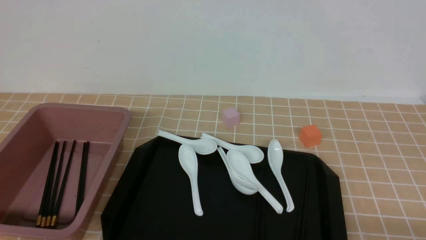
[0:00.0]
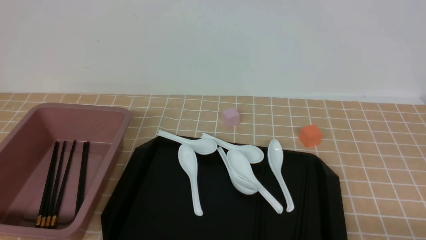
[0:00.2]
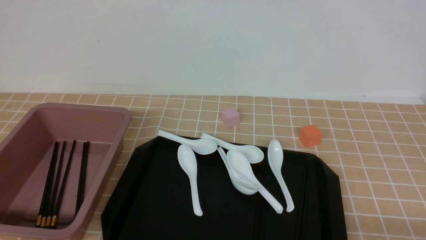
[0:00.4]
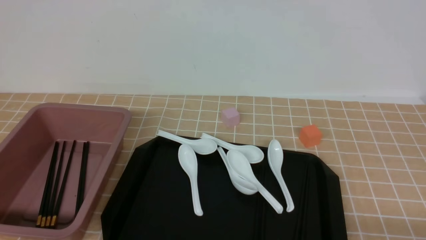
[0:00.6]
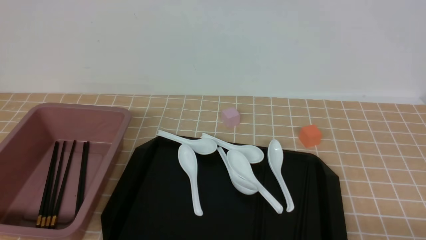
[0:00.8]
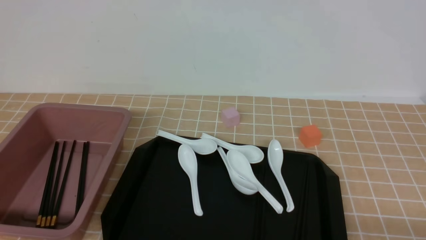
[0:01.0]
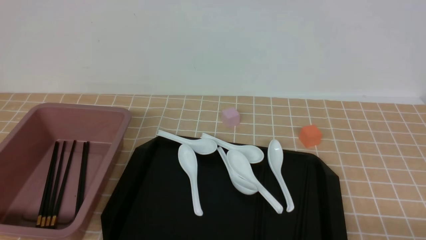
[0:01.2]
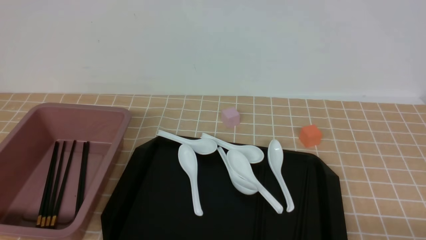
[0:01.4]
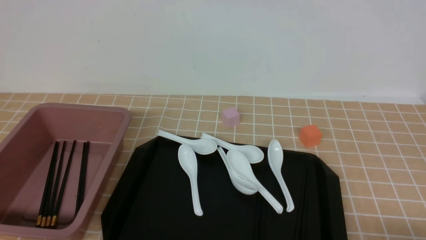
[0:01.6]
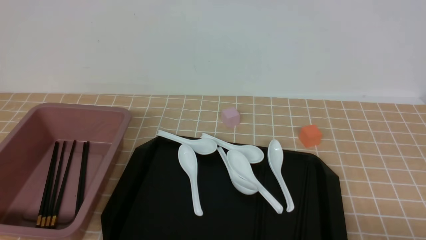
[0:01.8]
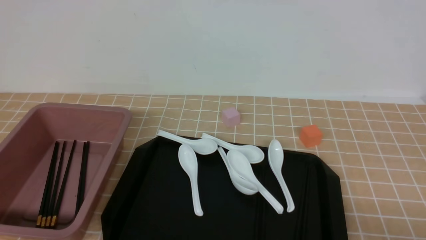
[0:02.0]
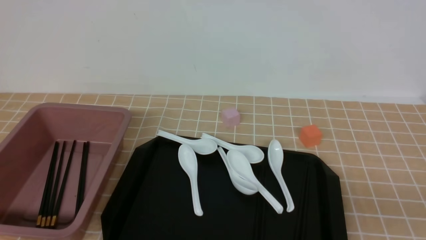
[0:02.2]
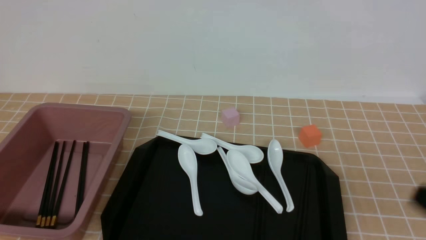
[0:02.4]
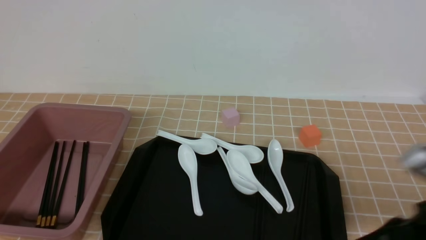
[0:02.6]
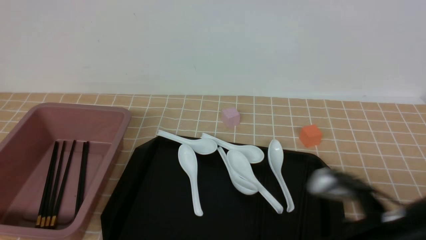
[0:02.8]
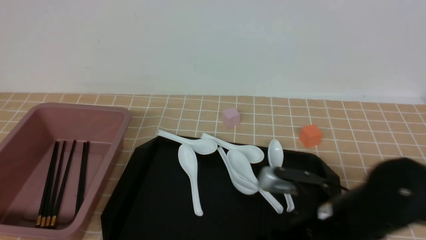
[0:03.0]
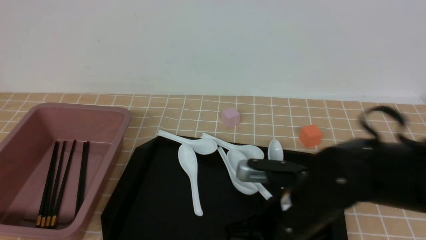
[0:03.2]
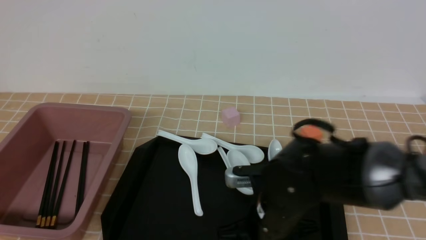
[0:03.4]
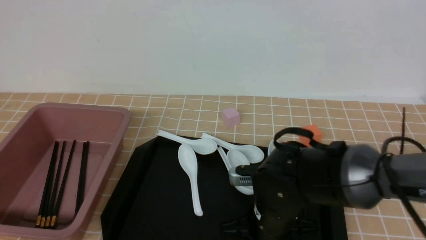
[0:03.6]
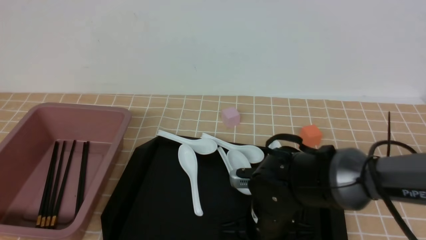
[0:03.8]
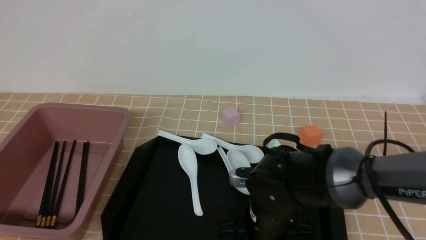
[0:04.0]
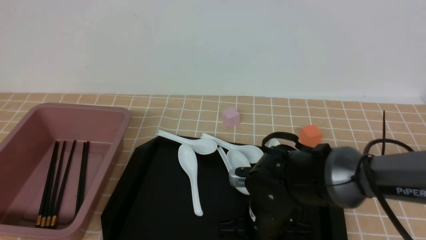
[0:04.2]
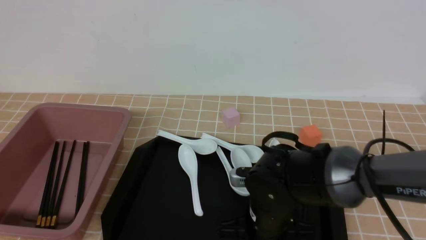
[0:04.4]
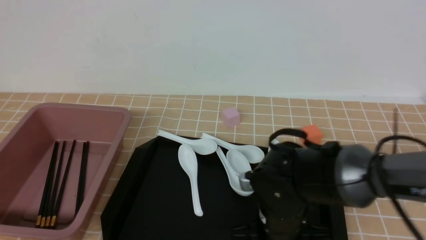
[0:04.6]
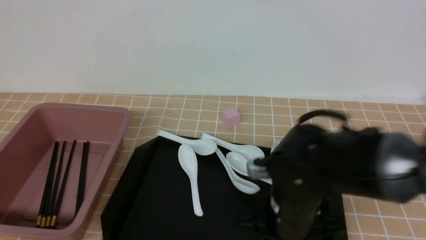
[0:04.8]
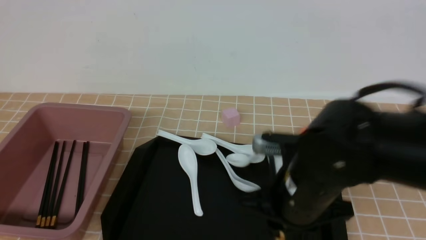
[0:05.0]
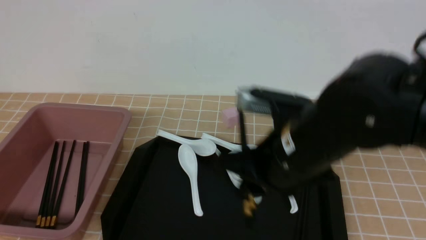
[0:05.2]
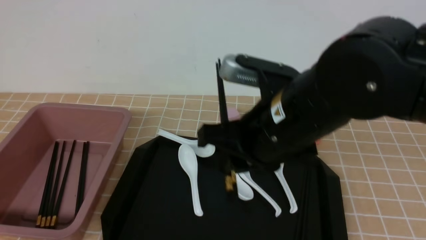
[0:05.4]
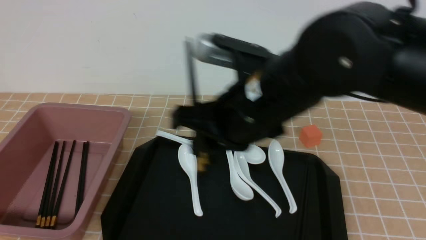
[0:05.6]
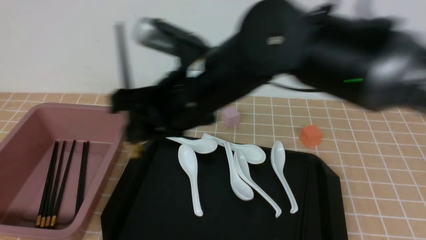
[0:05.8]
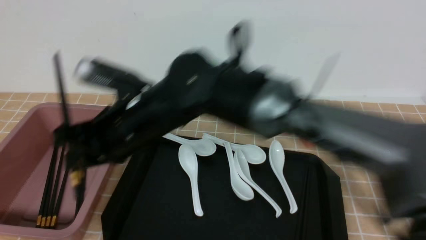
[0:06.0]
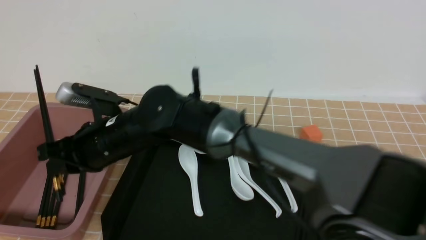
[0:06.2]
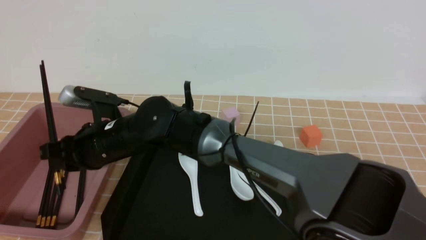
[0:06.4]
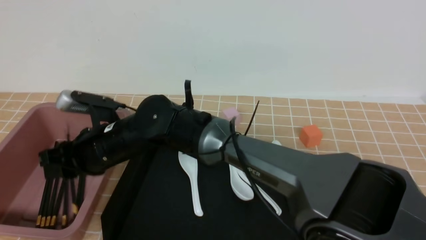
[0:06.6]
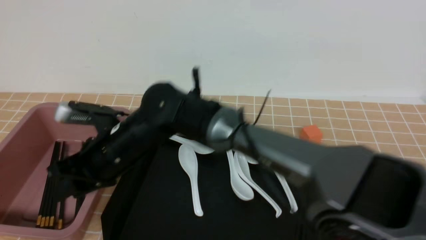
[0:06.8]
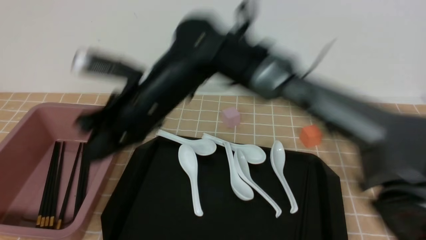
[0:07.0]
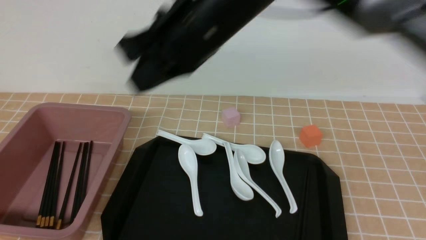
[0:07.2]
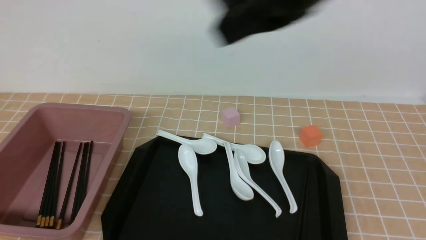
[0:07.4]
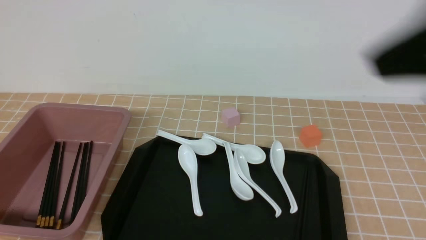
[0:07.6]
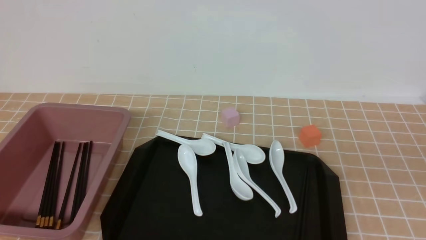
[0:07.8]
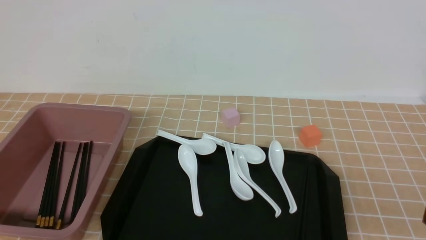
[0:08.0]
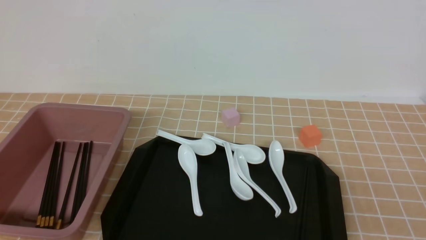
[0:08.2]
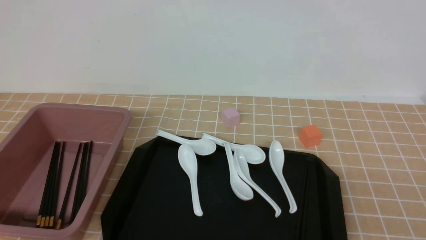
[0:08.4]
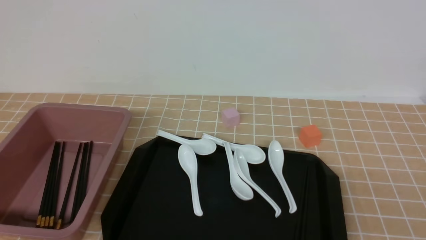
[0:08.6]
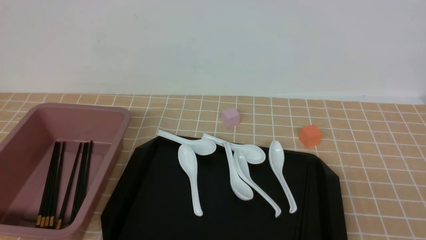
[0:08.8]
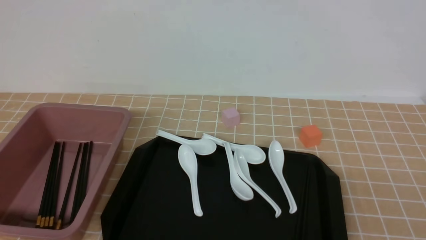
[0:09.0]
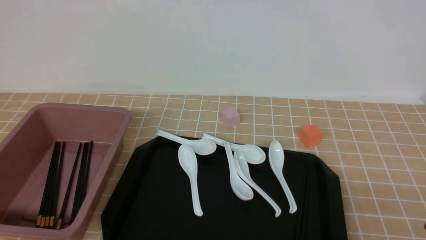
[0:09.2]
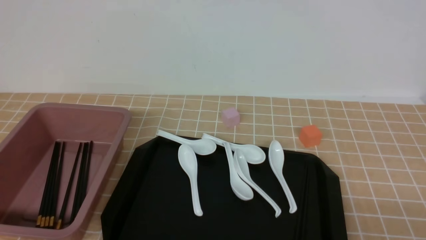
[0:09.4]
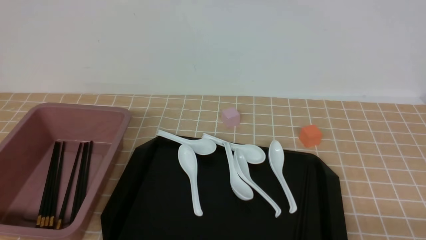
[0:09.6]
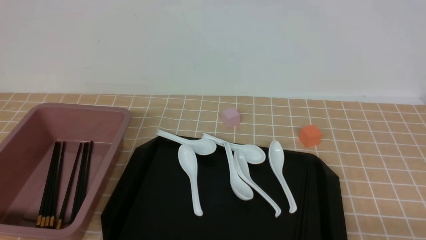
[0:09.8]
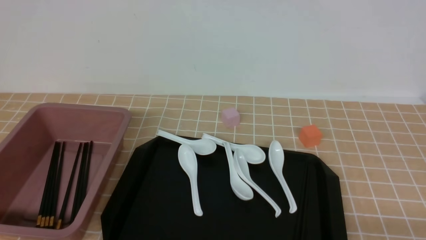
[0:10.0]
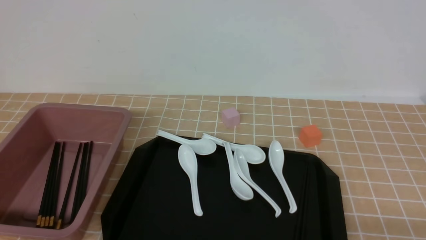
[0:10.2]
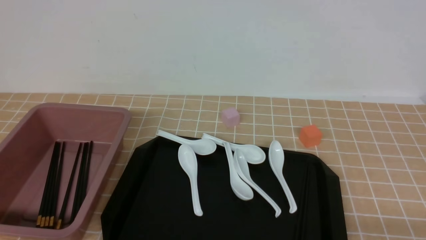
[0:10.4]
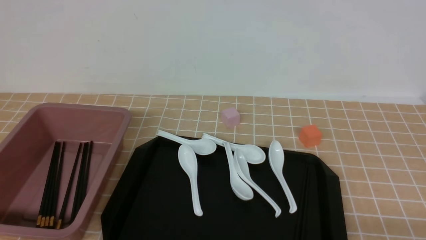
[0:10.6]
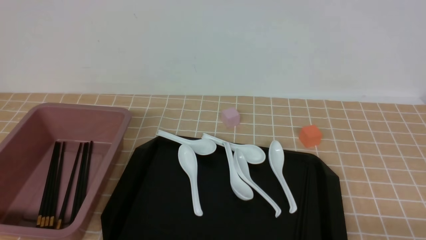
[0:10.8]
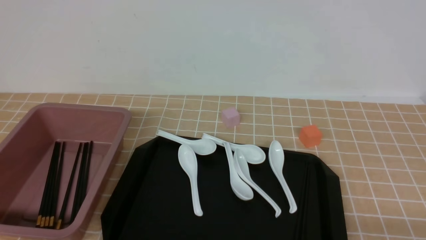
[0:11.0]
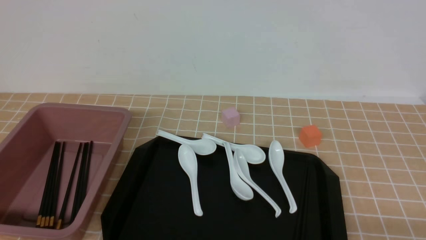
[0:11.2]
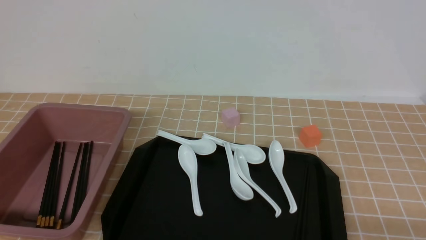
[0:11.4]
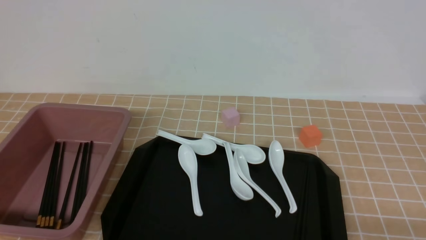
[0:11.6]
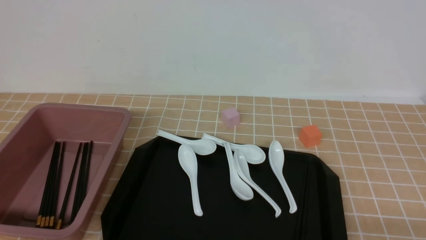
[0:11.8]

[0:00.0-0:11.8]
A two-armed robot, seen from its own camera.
Step, 0.0 to 4.8 s: use the right arm to grab a pair of chopsticks.
Step, 5.0 to 6.8 s: use the right arm to put the chopsticks into the lunch box.
1.4 to 3.0 s: The right gripper moves to the left and forward, some 25 cm, and closes, then opens again.
3.0 to 4.4 s: The right gripper is displaced downward and to the left by roughly 10 cm, and opens and closes again.
4.4 to 6.0 s: The right gripper moves to the left and upward, about 20 cm.
6.0 to 7.4 s: The right gripper shifts some 30 cm to the right, upward and backward, and closes its fingers.
7.4 to 8.8 s: The right gripper shifts about 30 cm downward, to the right and backward.
10.4 to 11.8 s: The two grippers keep their place.

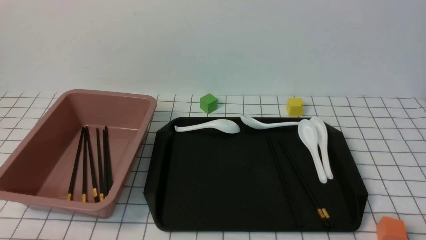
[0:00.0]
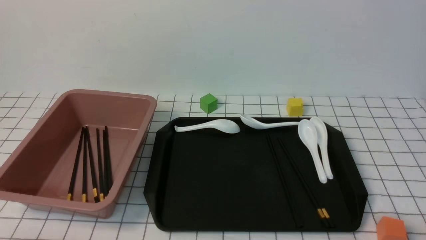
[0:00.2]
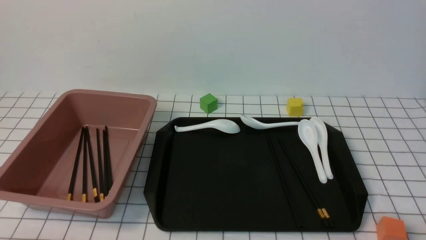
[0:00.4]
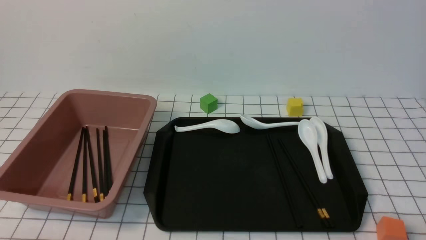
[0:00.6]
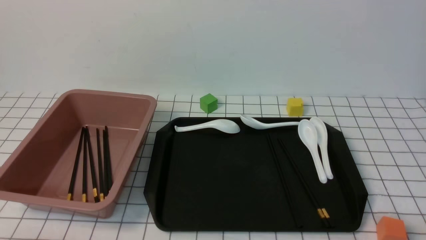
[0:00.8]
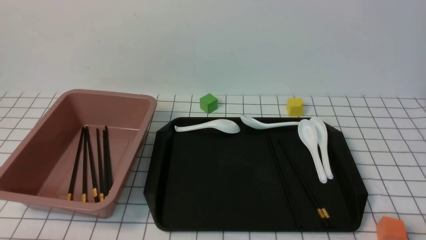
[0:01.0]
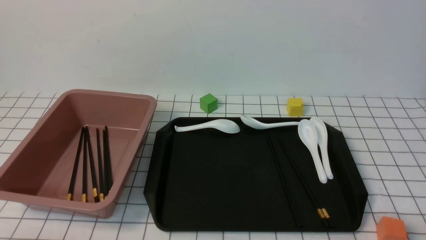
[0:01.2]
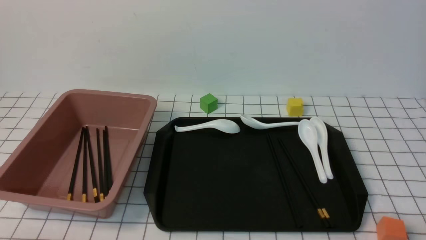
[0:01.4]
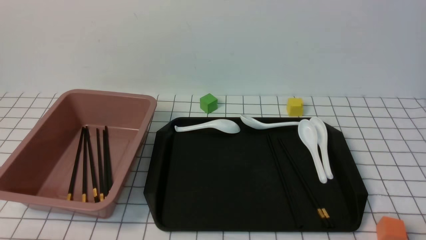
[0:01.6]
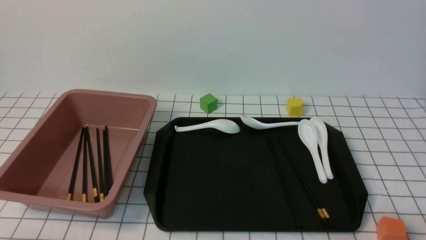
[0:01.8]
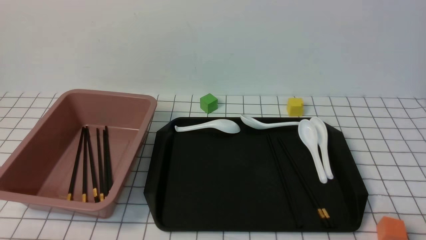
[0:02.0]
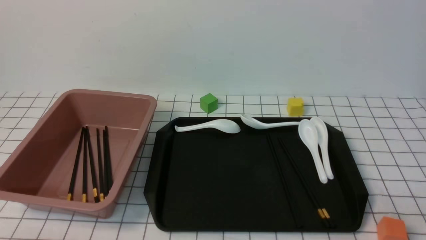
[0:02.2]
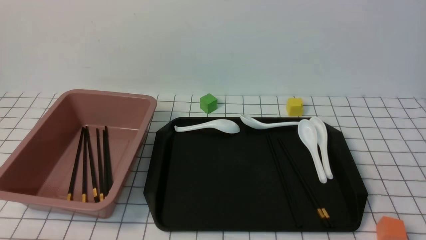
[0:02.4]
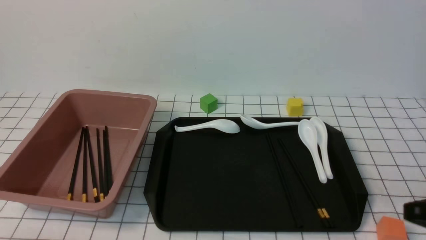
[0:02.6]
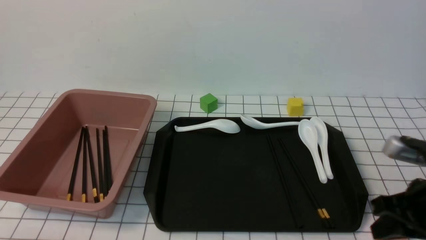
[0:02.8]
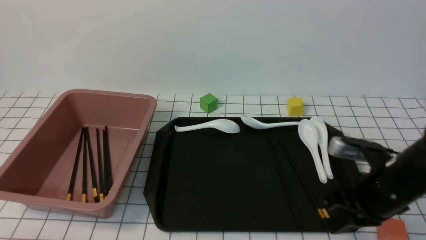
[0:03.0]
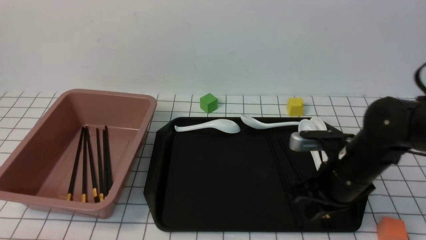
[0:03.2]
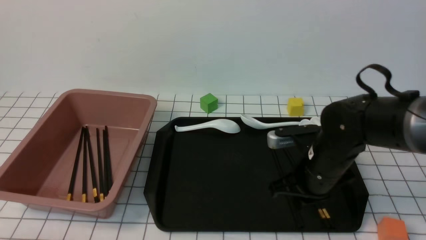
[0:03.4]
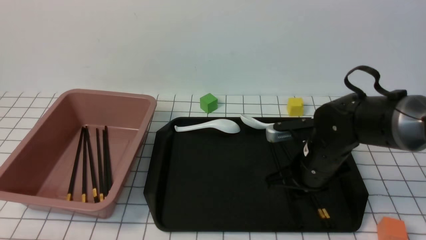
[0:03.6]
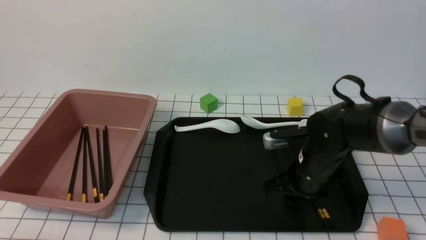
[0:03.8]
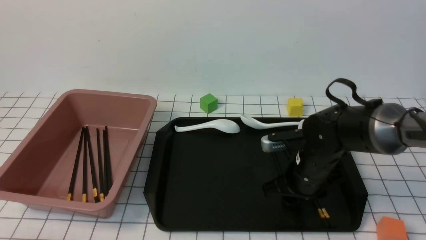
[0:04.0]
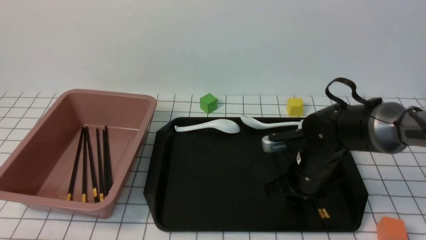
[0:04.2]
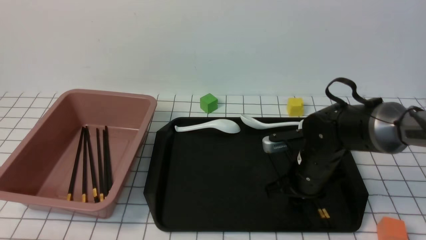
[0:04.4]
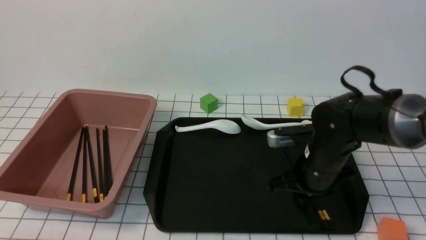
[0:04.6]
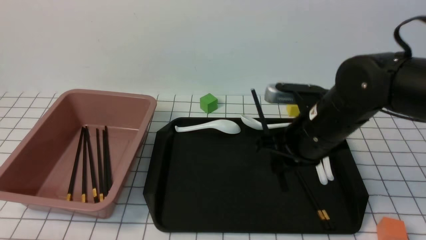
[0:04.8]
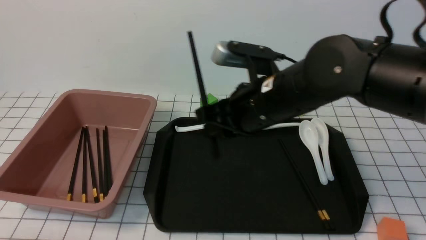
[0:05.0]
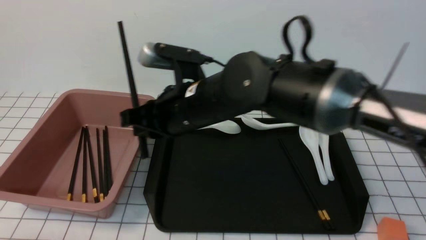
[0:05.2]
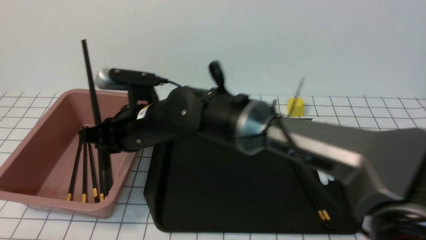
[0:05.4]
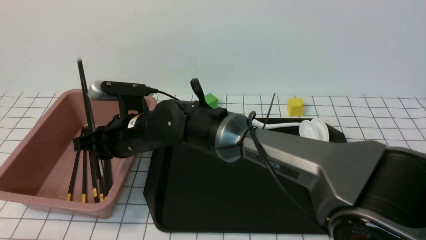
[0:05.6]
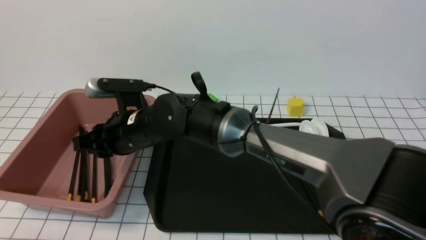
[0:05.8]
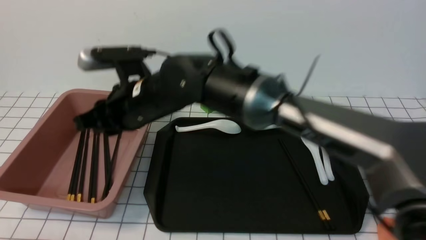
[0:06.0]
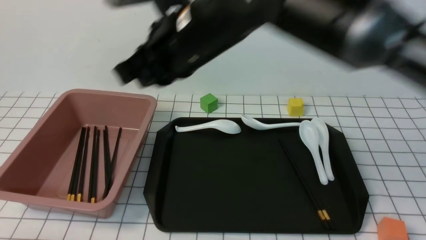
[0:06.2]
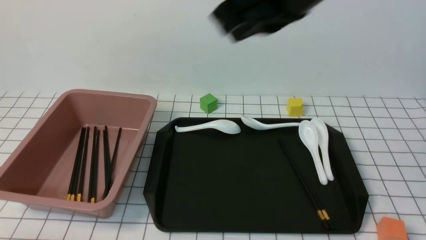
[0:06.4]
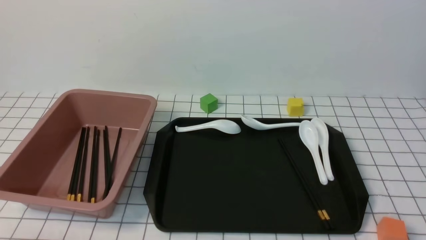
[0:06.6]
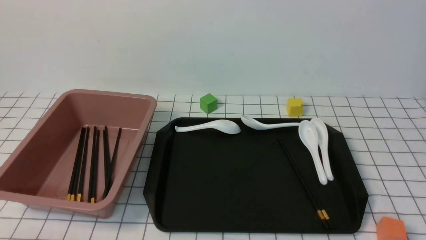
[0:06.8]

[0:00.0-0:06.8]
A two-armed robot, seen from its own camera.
Step, 0.0 to 4.6 s: use the right arm to grab a pair of chopsticks.
Step, 4.8 to 5.6 s: use the right arm to put the chopsticks into the lunch box.
0.0 to 1.4 s: Both grippers stay about where they are.
1.4 to 2.8 s: The right gripper goes approximately 15 cm forward and upward, and closes its fingers.
2.8 to 4.0 s: The right gripper heads forward, to the left and downward, covering about 20 cm, and opens.
4.0 to 5.4 s: The right gripper shifts approximately 25 cm to the left and upward, and closes.
5.4 to 6.8 s: The right gripper travels to the right, backward and upward by approximately 50 cm, and closes.
